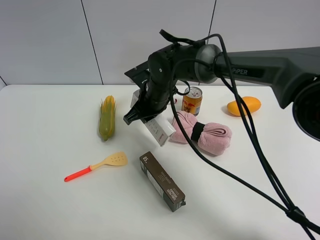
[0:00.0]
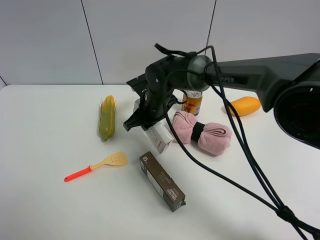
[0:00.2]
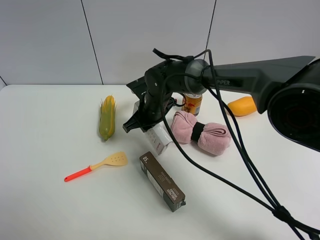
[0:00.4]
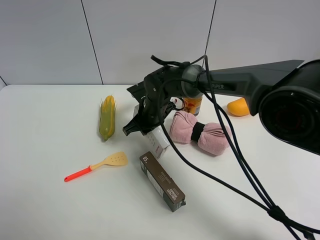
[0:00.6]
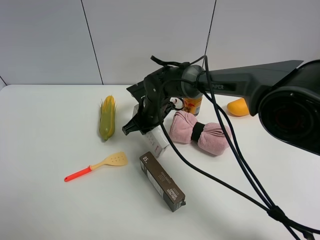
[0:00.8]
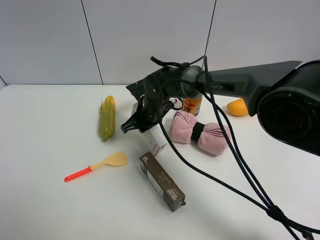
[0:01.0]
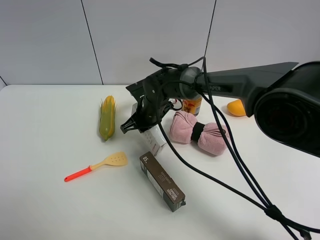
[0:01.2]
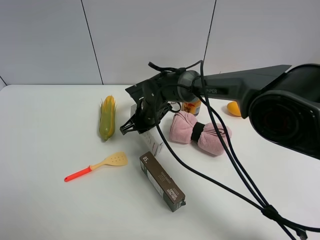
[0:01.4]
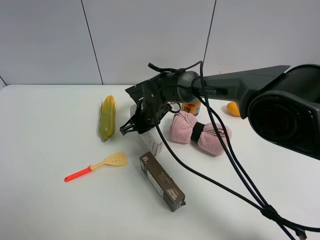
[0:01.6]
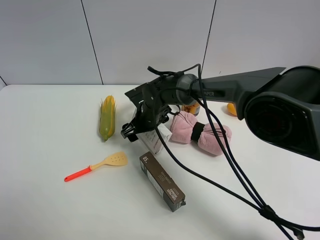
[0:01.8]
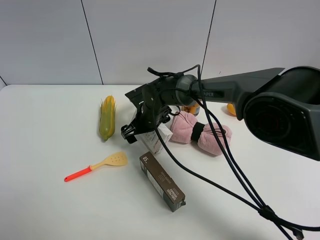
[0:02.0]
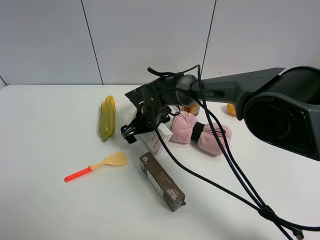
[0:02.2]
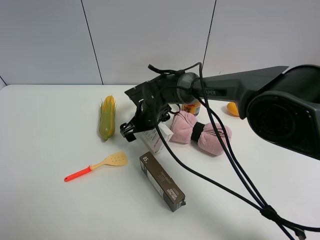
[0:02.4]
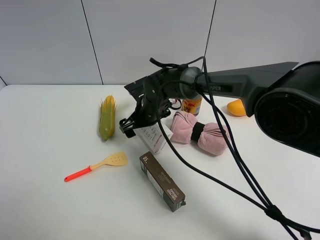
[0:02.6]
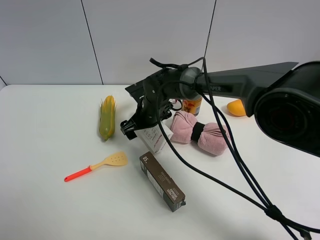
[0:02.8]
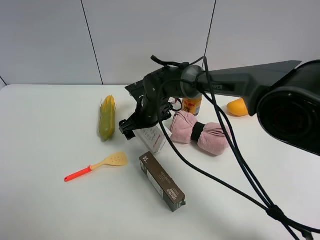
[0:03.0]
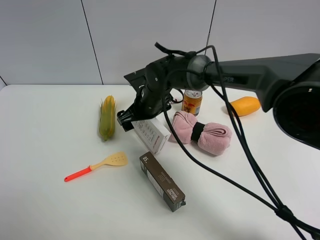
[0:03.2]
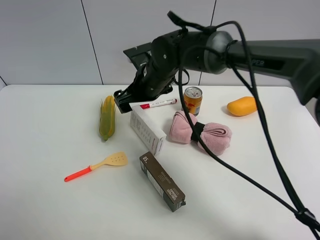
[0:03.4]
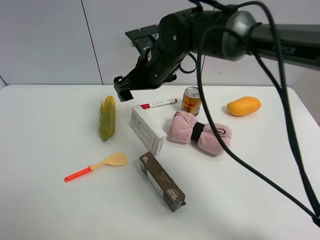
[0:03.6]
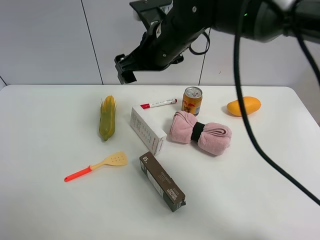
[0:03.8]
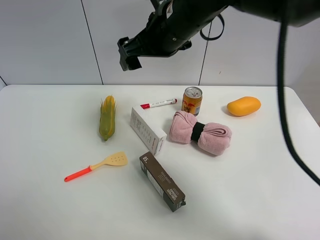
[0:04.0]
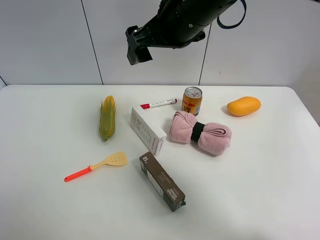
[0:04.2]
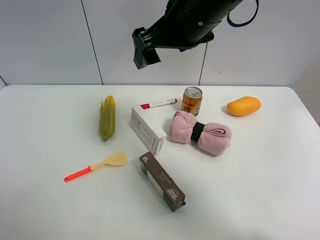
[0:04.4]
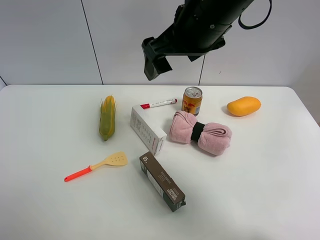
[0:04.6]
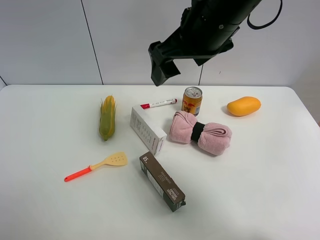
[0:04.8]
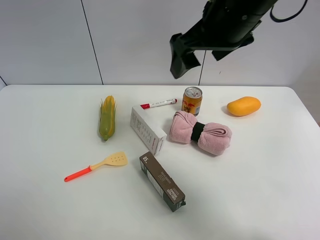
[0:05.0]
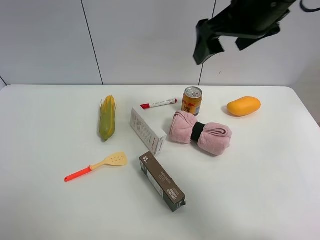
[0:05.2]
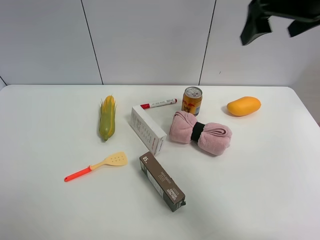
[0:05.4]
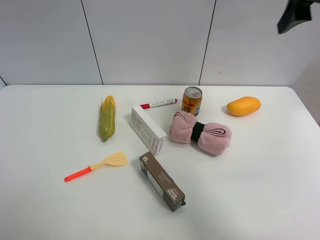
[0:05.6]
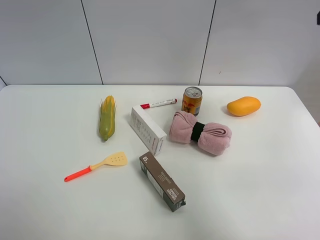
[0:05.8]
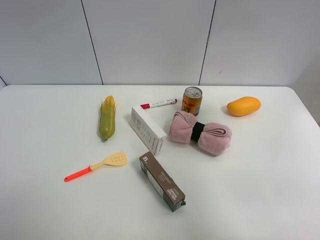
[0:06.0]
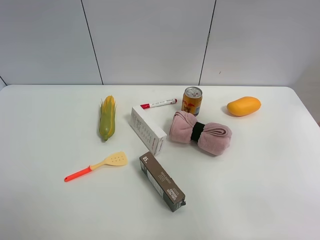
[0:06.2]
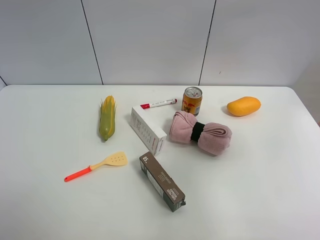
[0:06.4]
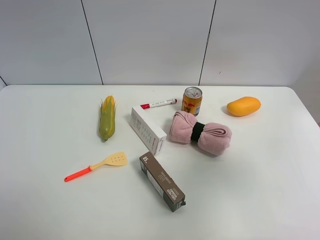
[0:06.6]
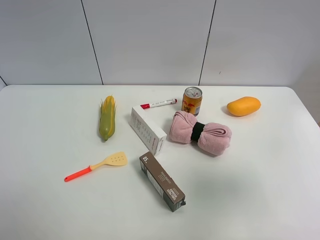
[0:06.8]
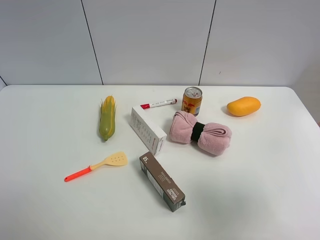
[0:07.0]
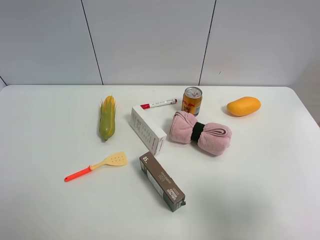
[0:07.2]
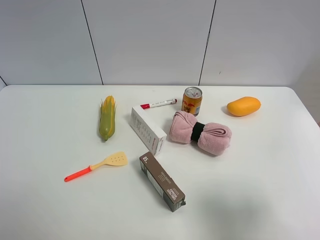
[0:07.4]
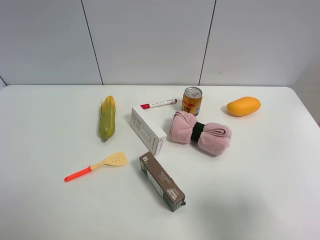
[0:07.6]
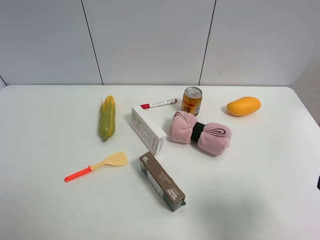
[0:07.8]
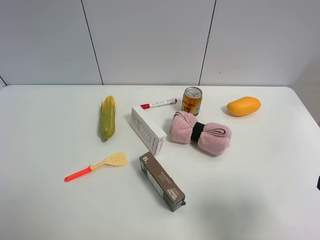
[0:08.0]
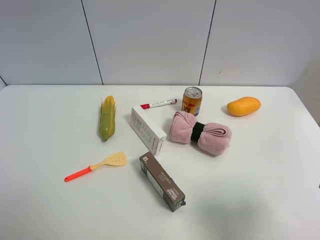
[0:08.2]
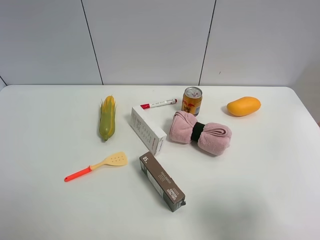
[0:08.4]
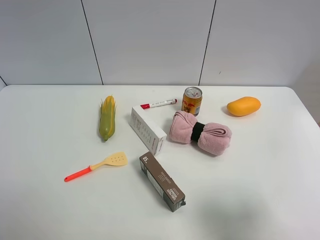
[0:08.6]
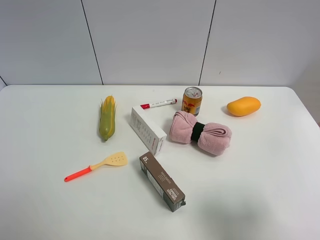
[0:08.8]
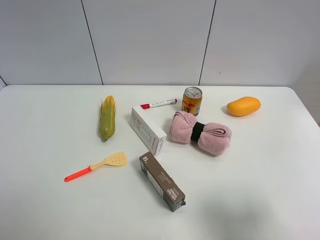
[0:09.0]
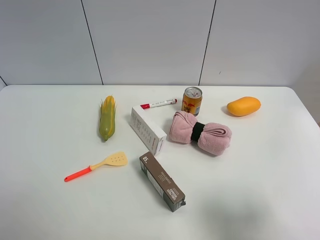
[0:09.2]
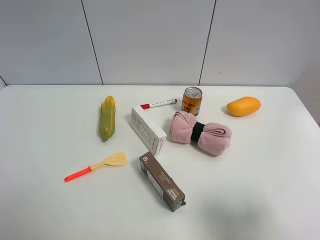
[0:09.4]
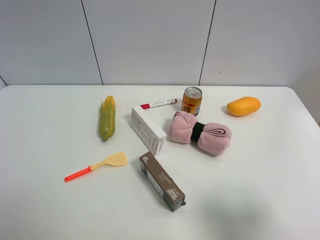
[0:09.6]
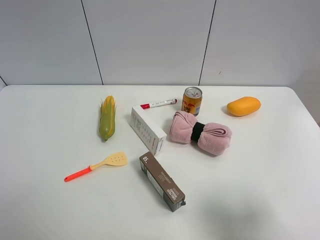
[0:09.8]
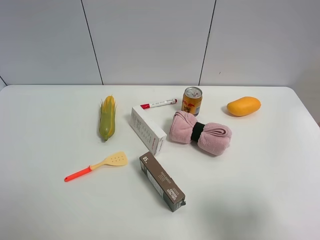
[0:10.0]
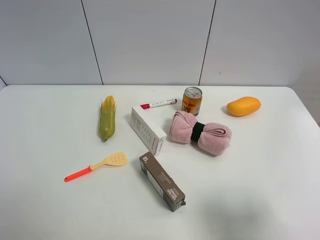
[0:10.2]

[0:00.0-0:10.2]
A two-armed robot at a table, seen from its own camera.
Task of the whole recording: the gripper move the object.
0:00.0 to 0:01.4: The right gripper travels downward by approximately 5 cm.
0:01.4 to 0:03.0: The right gripper opens its fingers.
0:03.0 to 0:04.4: The right gripper heads upward, covering roughly 25 cm.
0:04.4 to 0:05.8: The right gripper is displaced to the right by some 25 cm.
0:05.8 to 0:07.2: The right gripper heads backward and downward, covering roughly 30 cm.
0:08.8 to 0:10.2: Both grippers stay about where they are.

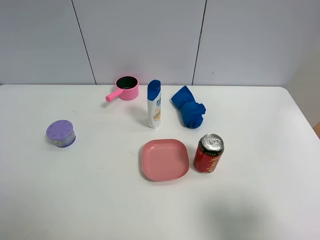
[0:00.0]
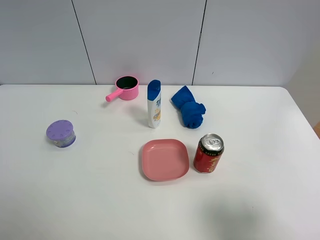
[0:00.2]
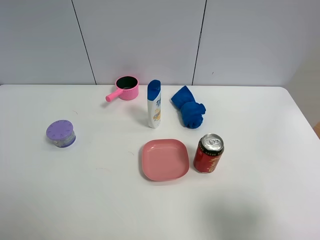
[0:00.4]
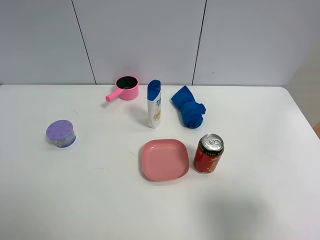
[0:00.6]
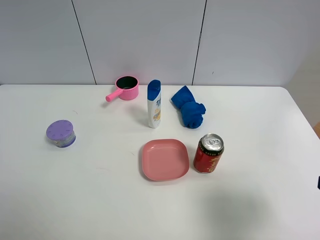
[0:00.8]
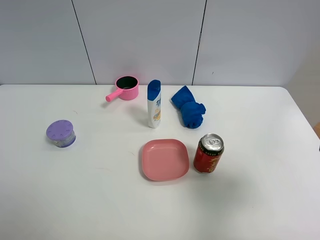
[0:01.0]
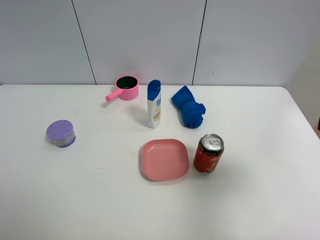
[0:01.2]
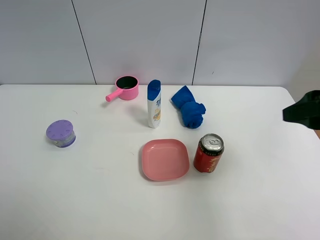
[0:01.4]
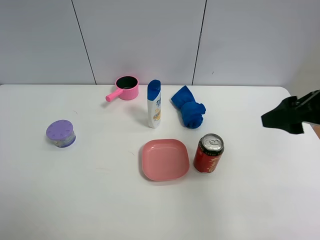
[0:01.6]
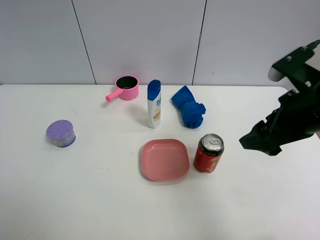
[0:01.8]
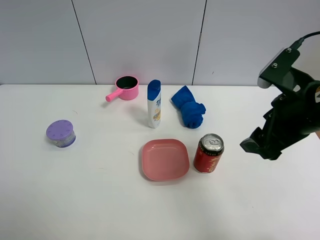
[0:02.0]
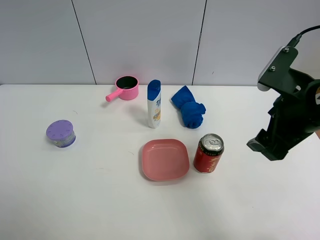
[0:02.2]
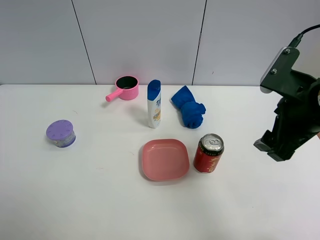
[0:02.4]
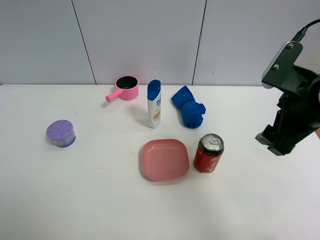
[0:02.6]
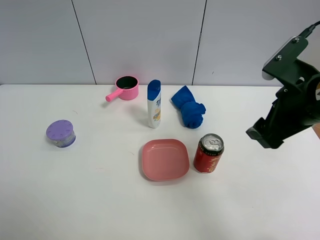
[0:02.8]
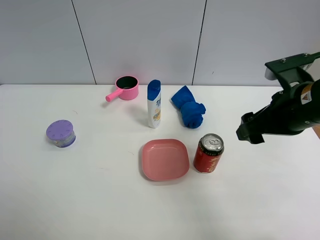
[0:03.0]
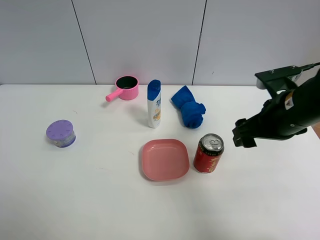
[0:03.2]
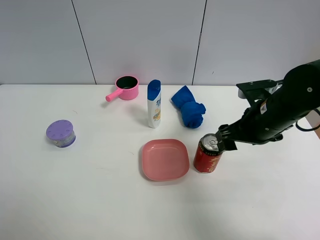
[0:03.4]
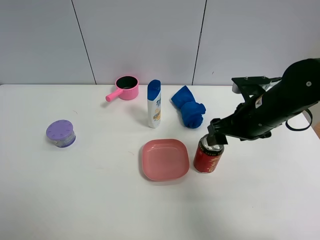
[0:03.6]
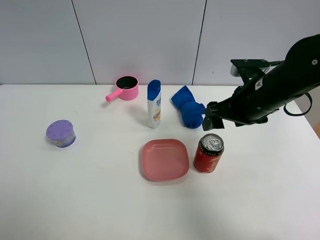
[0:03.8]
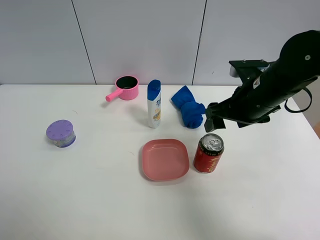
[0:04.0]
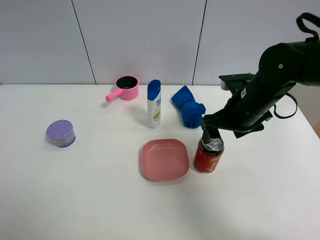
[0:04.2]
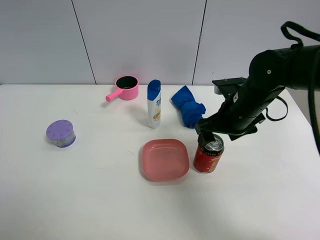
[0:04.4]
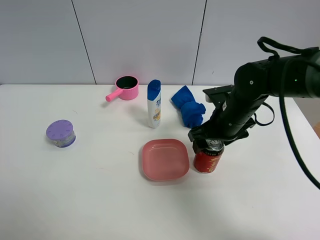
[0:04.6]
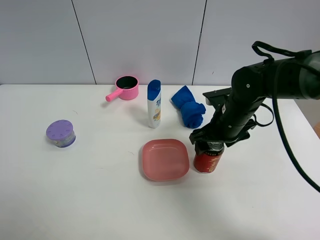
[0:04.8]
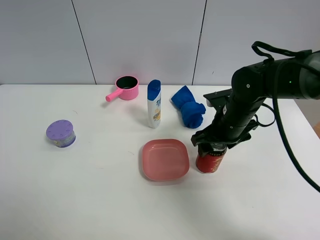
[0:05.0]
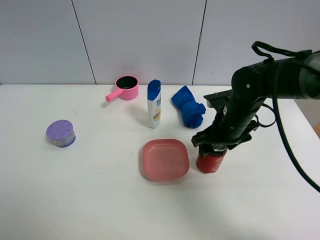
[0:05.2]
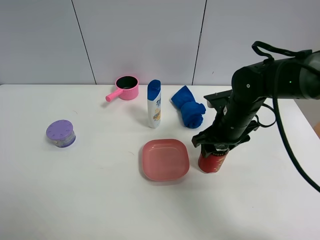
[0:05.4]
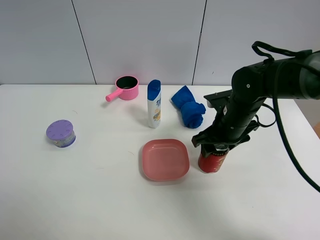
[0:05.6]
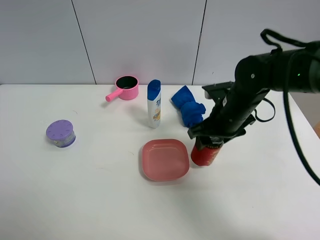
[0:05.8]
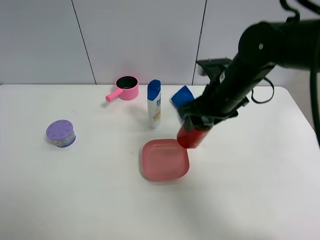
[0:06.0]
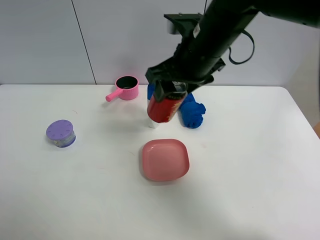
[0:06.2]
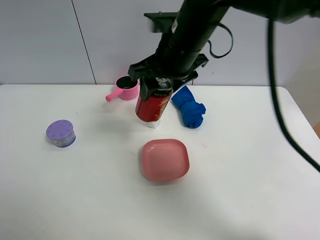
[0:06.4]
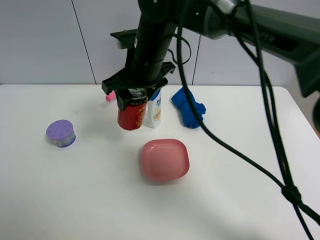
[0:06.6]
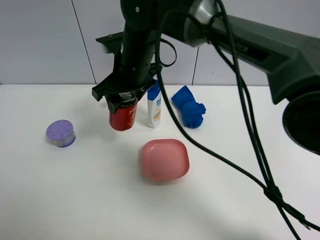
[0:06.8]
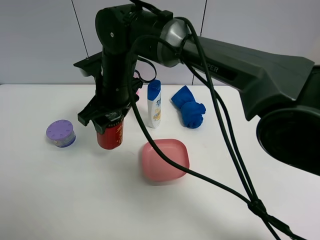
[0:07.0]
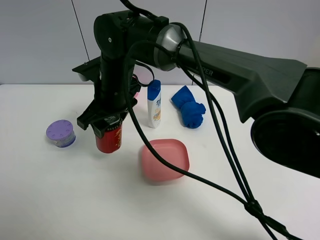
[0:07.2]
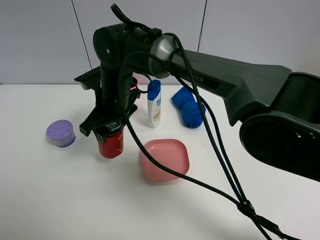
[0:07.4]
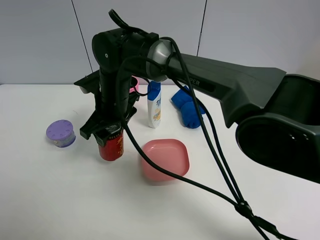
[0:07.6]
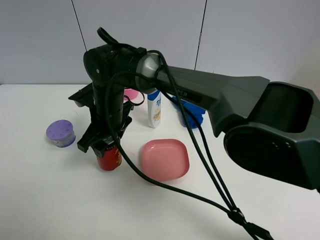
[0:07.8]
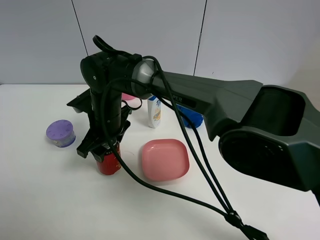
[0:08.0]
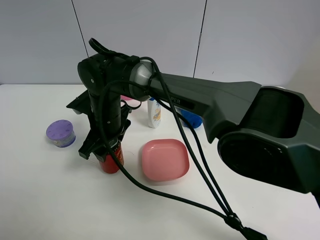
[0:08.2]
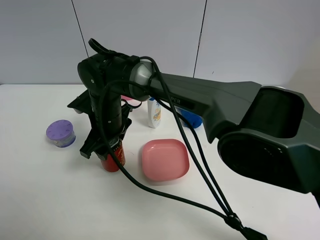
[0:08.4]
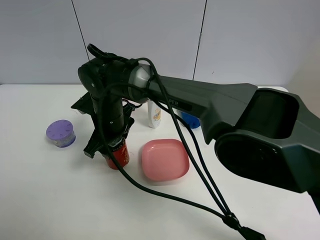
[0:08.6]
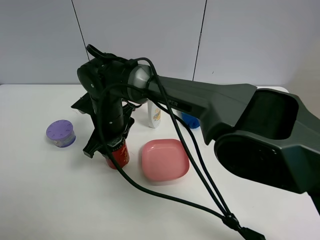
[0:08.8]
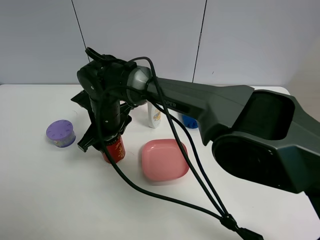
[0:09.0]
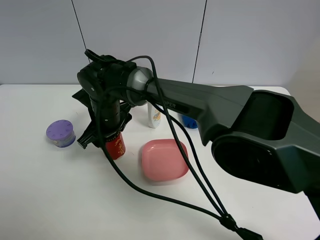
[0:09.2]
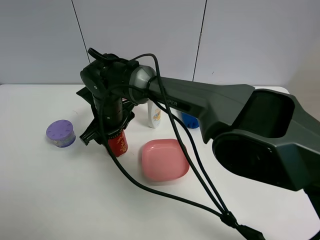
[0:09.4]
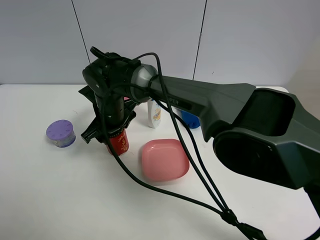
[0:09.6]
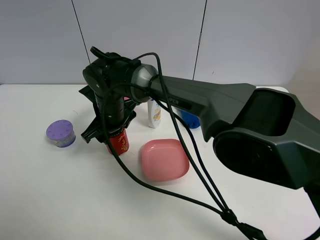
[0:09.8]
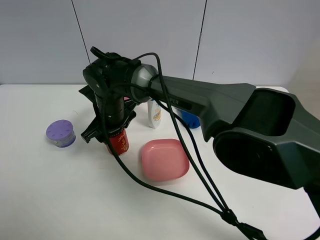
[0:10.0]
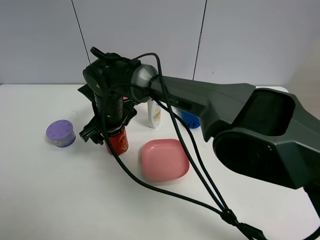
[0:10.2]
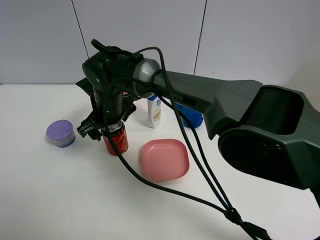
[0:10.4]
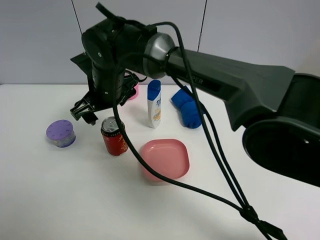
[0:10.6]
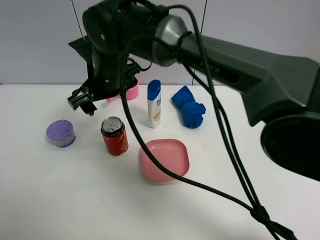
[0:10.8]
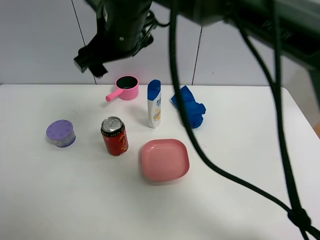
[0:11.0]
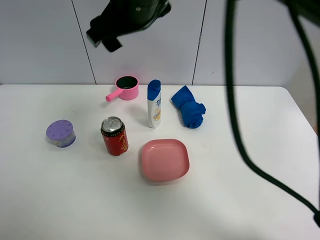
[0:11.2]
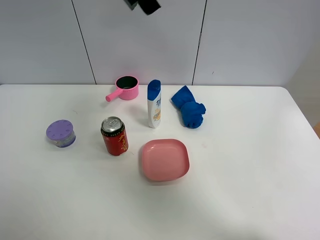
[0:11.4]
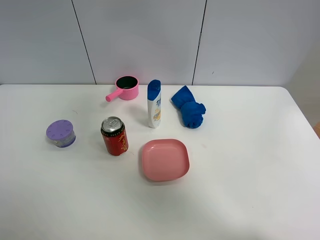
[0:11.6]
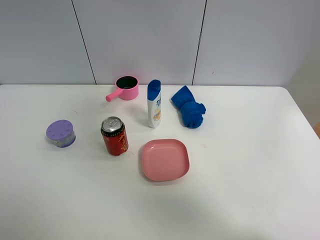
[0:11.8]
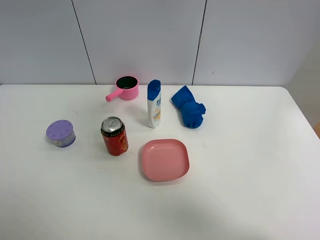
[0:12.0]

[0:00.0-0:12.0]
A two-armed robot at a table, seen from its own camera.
Task of the whole recording: the gripper move the object.
Step, 0:00.0 to 0:05.4: Grasp the Jia Duo Bao with the right gripper.
Step, 0:05.6 to 0:10.4: Place the Jia Duo Bao on the table with the right gripper.
0:00.0 to 0:01.6: The right gripper shifts approximately 20 cm forward.
0:01.6 to 0:03.0: The right gripper moves some 5 cm.
0:03.0 to 0:04.4: The right gripper heads forward, downward and to the left, covering about 10 cm.
0:04.4 to 0:06.0: The right gripper shifts approximately 5 cm upward, and closes its fingers.
0:06.0 to 0:07.6: The right gripper travels to the left by some 20 cm.
0:09.0 to 0:10.4: The right gripper opens its fingers.
0:10.4 to 0:12.0: The right gripper shifts approximately 40 cm upward and to the right.
